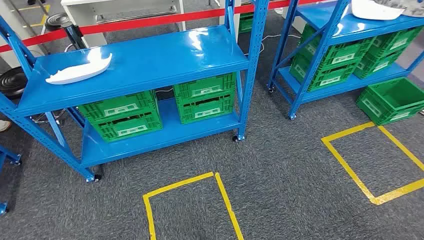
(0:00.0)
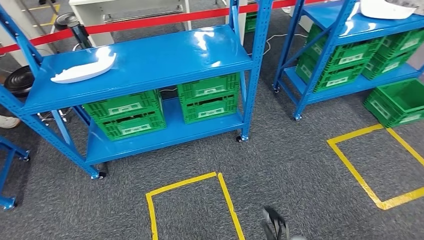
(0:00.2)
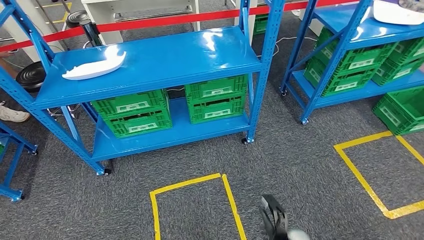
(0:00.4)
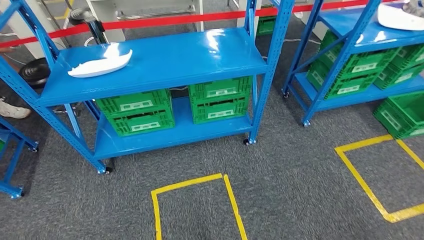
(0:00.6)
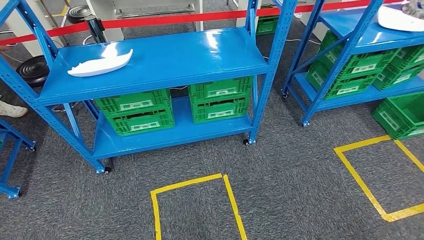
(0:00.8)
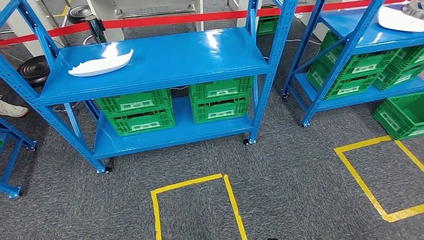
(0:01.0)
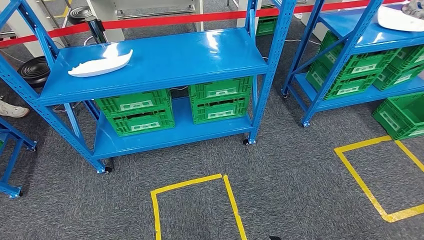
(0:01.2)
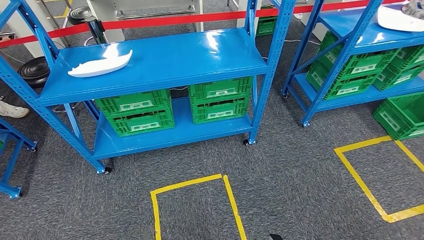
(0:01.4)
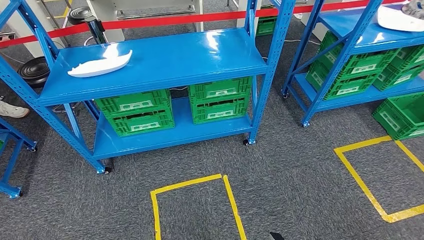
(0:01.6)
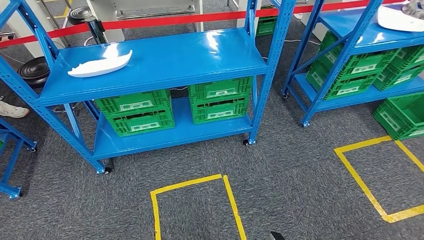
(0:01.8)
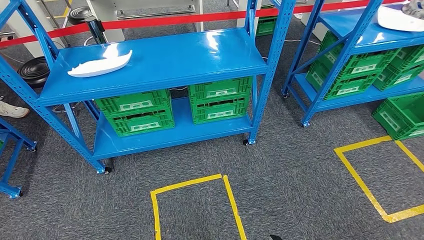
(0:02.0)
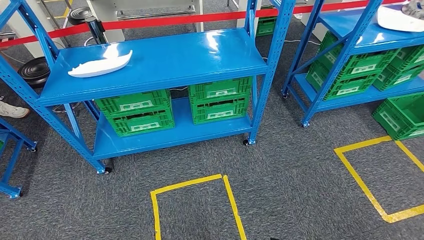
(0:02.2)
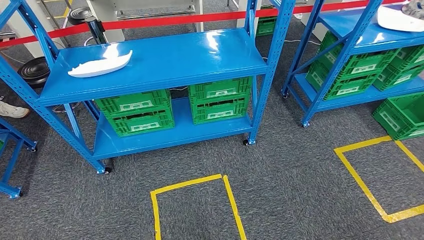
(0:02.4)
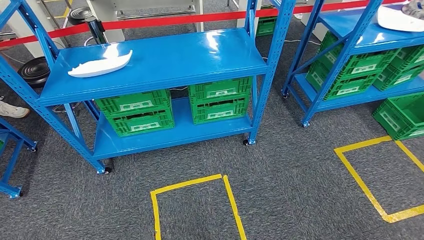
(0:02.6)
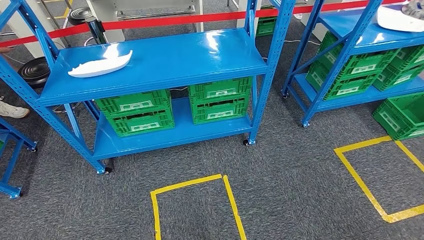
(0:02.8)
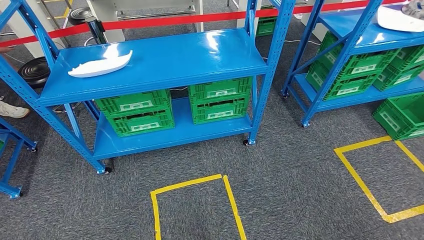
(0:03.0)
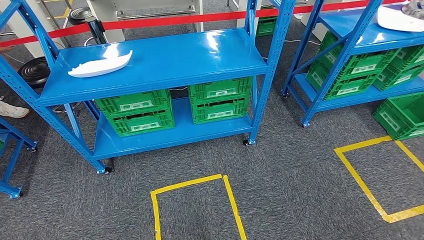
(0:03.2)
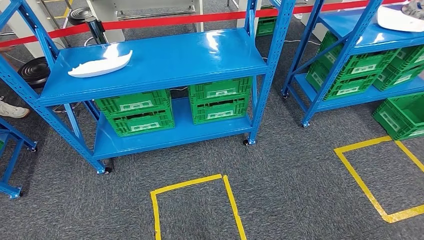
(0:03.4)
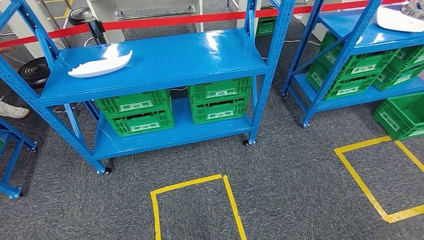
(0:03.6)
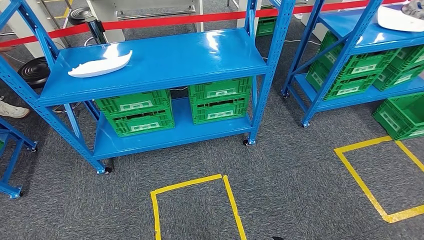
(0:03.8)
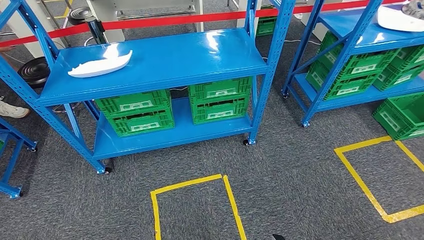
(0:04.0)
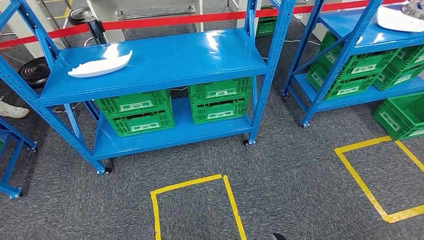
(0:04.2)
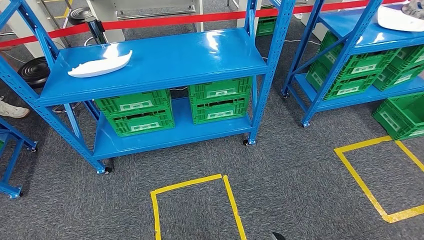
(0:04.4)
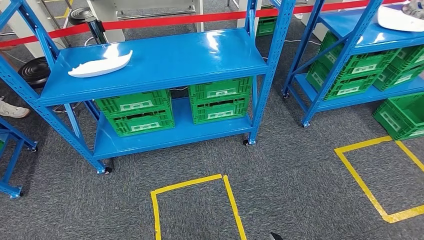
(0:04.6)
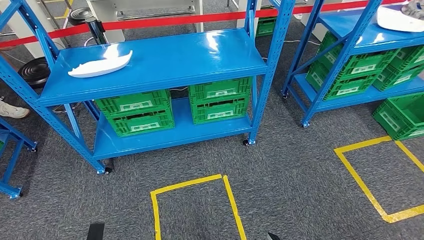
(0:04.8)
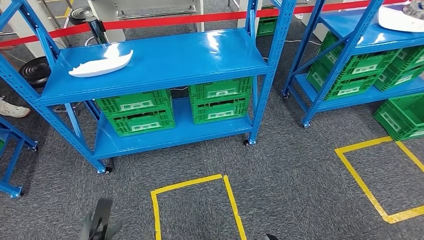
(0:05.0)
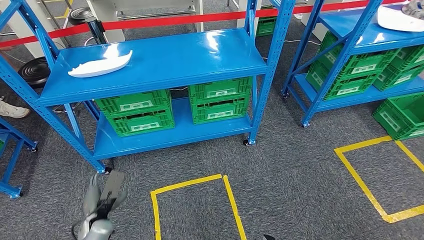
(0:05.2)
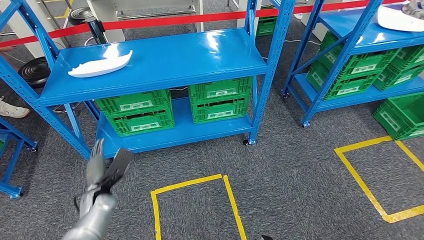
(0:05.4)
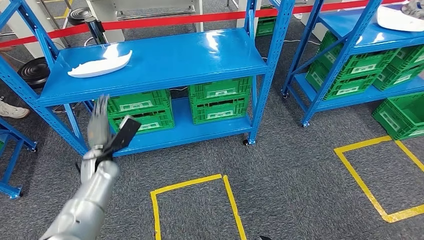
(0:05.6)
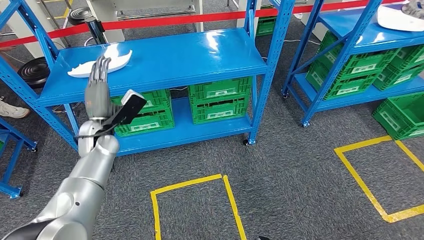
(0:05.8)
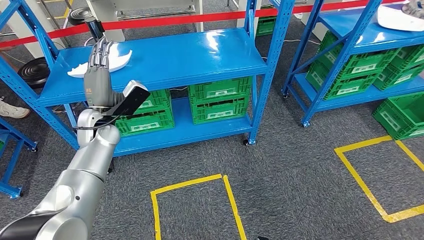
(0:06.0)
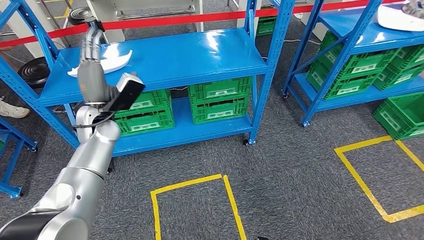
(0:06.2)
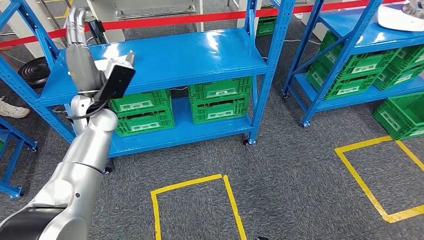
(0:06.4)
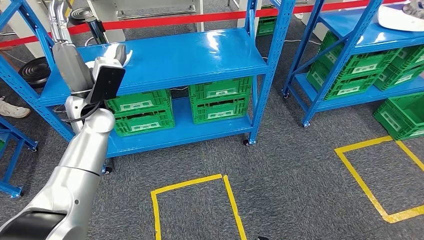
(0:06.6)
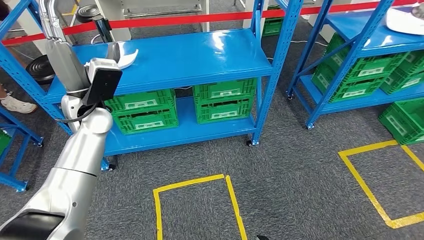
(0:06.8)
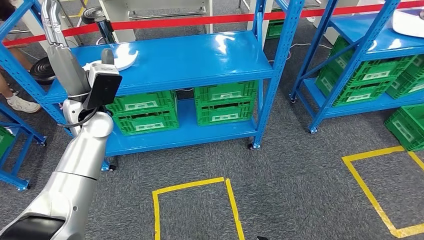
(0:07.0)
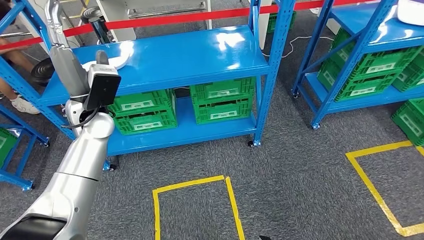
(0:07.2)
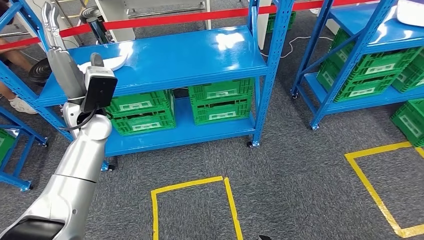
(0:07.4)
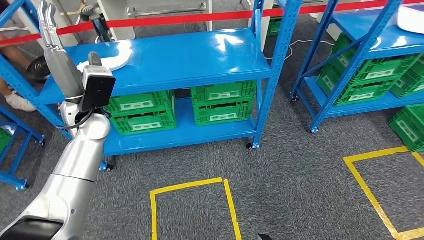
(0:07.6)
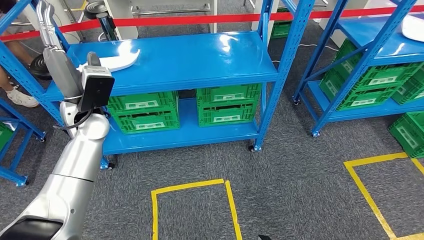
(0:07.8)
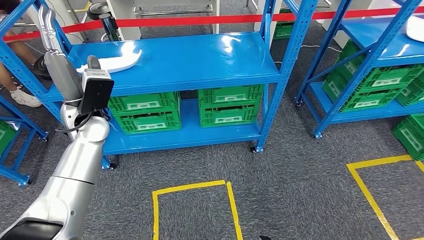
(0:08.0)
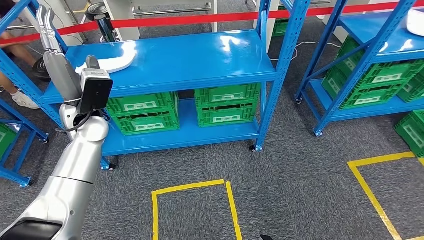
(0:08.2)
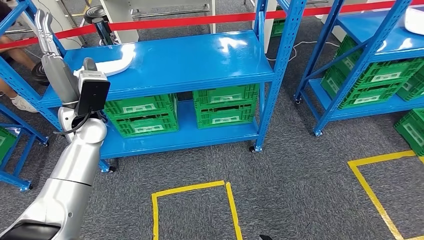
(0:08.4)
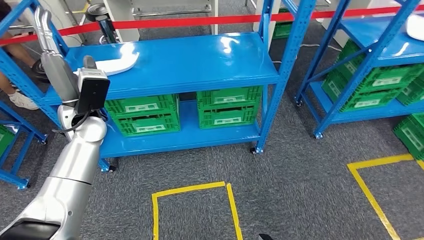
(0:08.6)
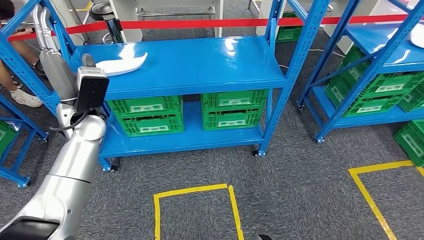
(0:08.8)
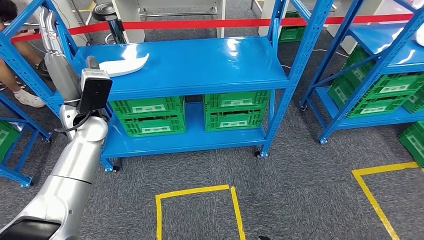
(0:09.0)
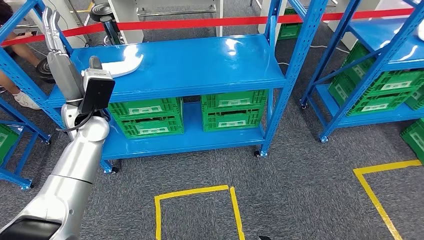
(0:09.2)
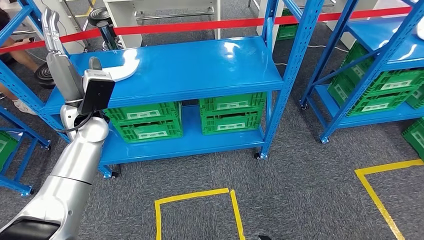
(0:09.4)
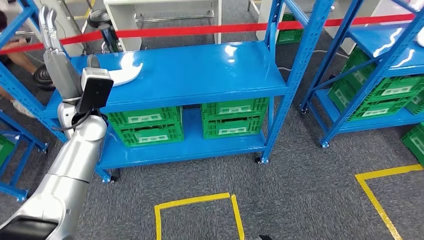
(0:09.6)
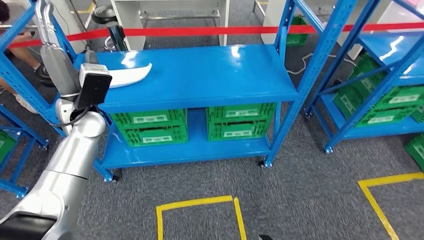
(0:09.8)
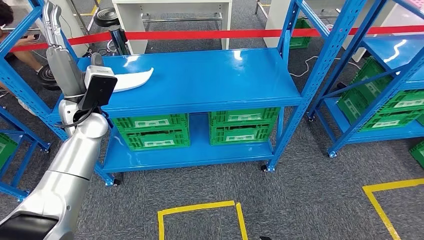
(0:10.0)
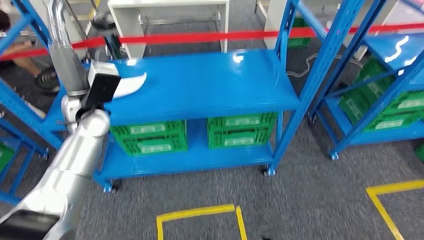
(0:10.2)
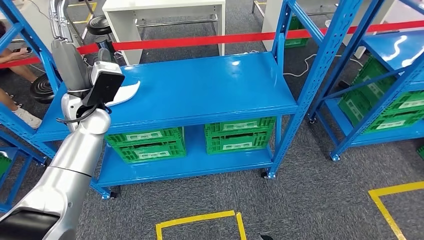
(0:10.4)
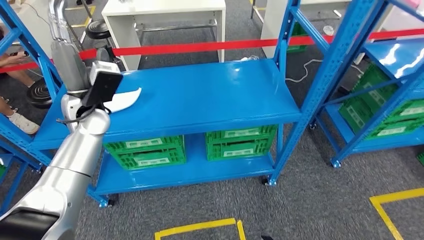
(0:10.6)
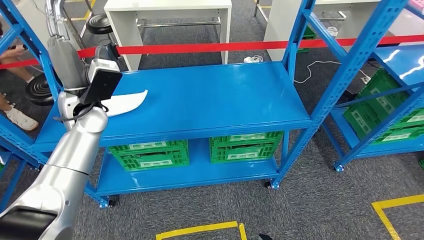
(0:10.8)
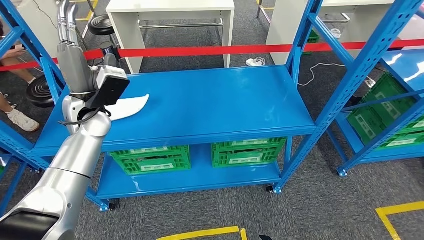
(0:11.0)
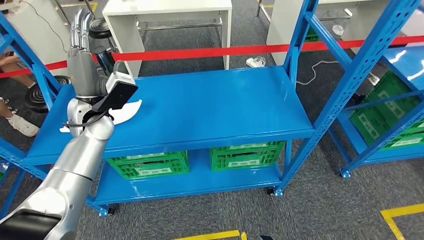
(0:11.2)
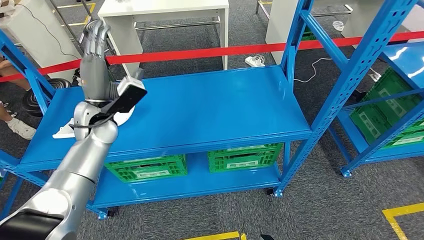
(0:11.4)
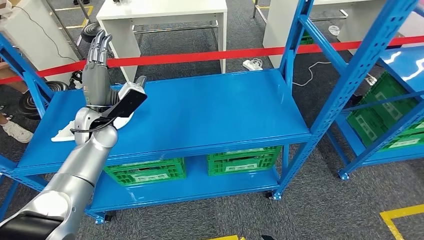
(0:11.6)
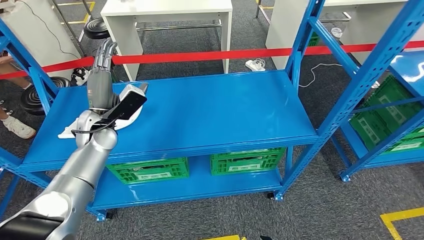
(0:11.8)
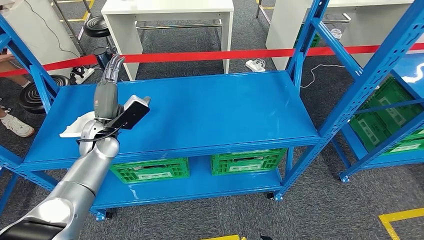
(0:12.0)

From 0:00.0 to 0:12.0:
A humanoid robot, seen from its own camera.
From 0:04.4 to 0:06.0: The left hand is displaced forward and upward by some 50 cm.

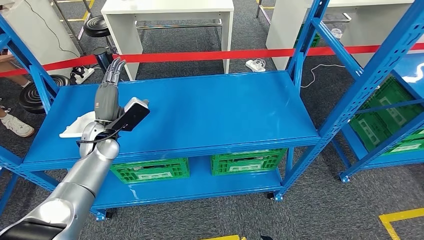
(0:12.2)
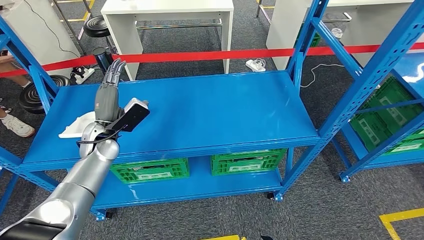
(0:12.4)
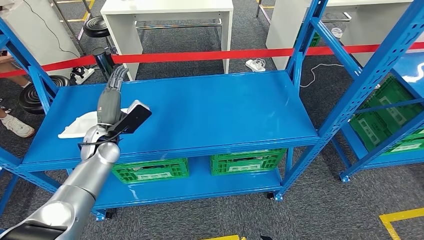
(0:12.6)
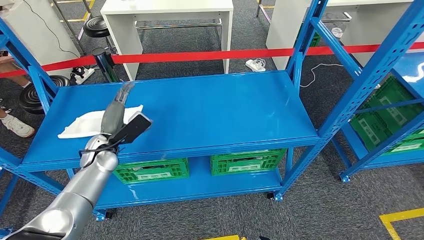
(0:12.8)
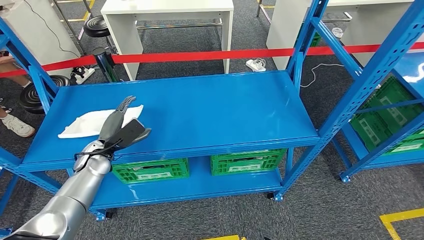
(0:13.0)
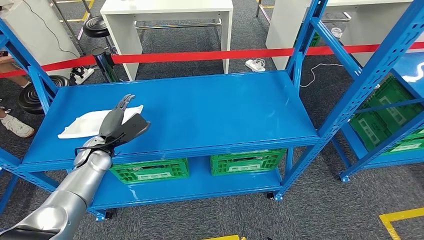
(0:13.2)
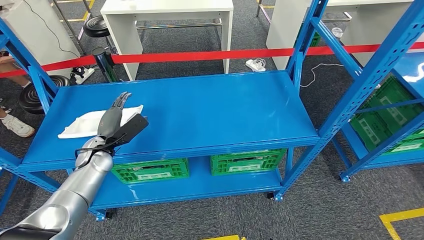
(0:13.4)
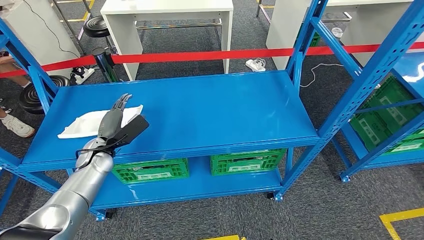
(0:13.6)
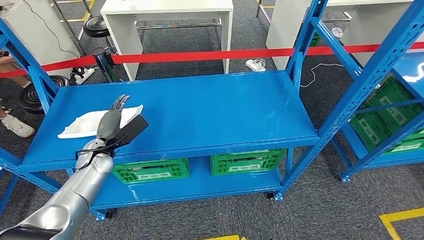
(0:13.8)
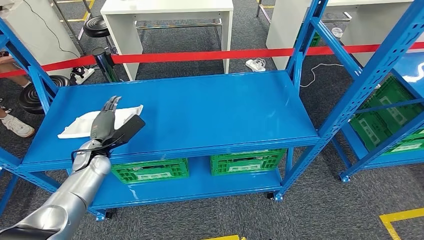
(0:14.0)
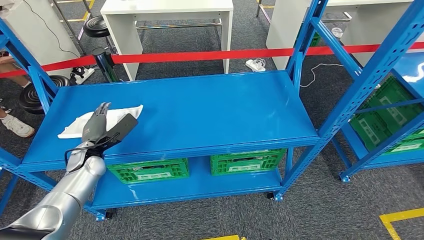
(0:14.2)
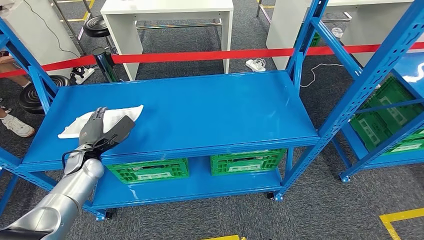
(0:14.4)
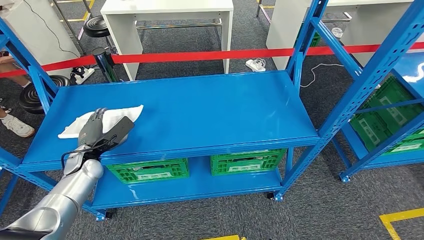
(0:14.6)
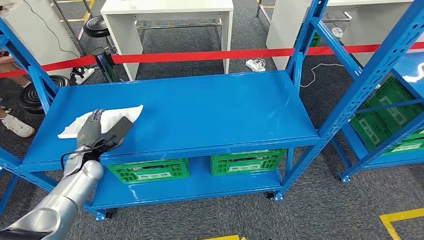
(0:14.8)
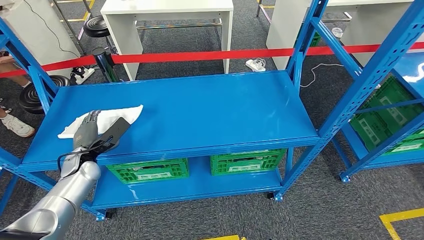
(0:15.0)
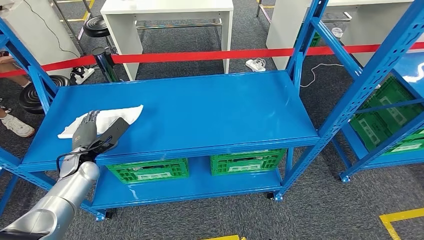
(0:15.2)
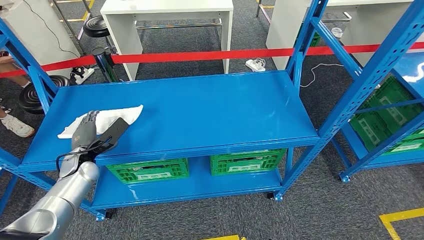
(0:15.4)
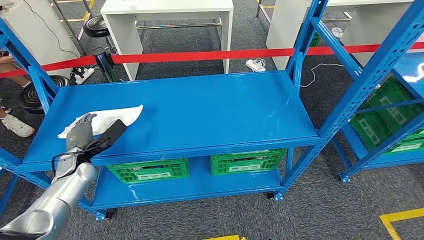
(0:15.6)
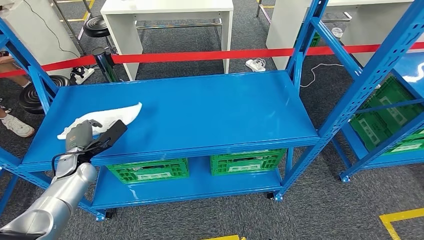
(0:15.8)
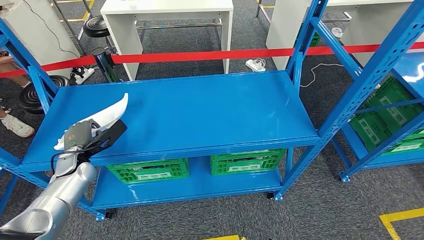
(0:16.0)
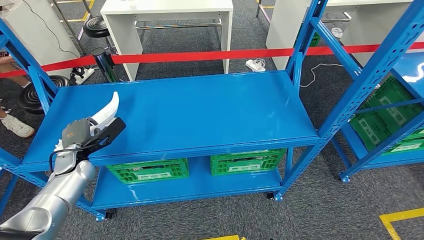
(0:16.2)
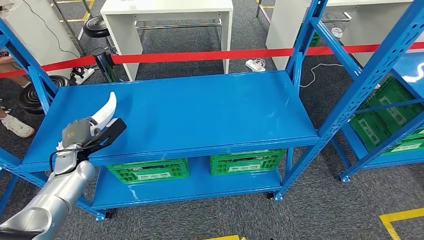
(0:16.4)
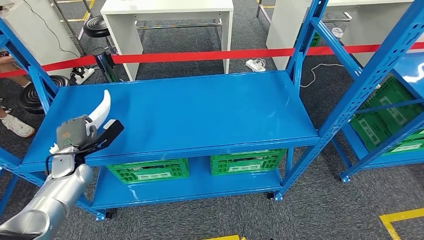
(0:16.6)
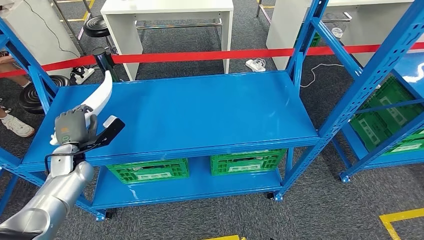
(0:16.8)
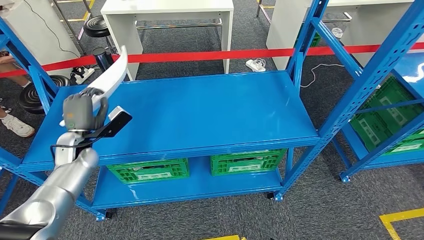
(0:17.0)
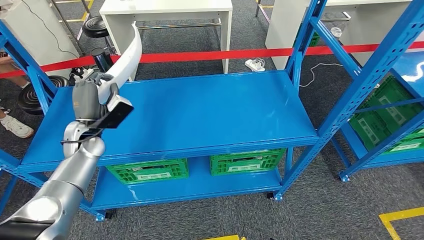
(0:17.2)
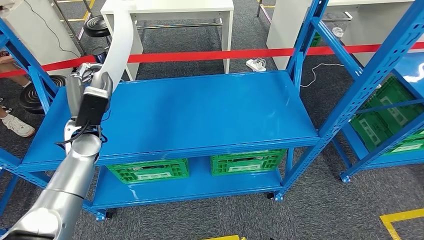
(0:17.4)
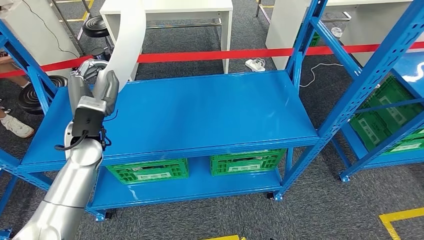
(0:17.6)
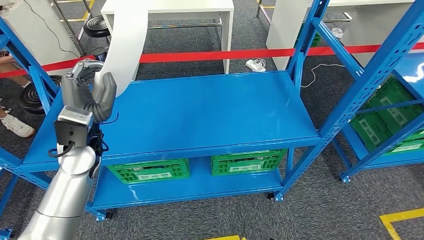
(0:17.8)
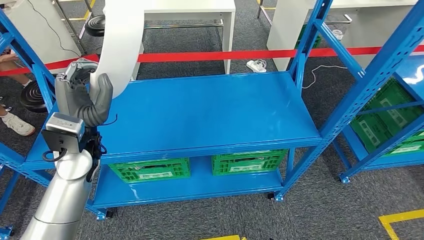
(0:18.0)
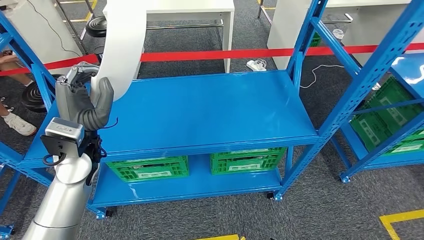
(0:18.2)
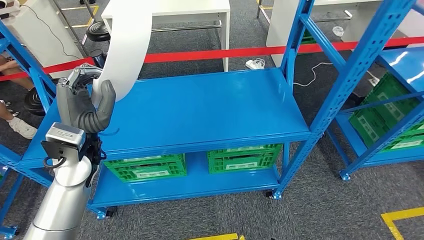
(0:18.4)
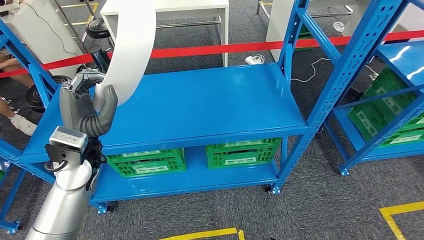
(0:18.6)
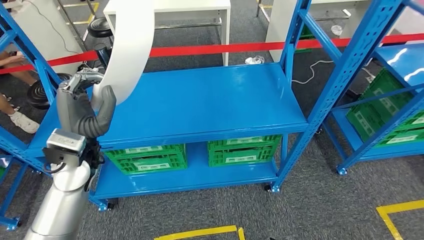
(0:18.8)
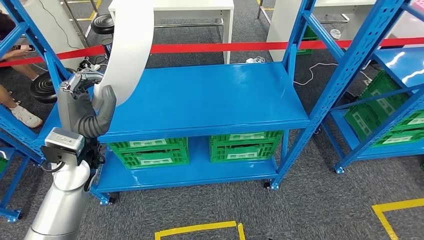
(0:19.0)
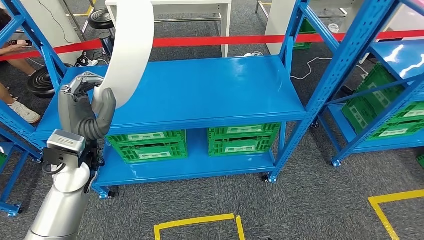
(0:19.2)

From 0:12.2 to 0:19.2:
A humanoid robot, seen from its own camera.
Step, from 0:12.2 to 0:17.4: Pick up the small component from the shelf.
From 0:12.2 to 0:13.6: The left hand heads downward, covering some 5 cm.
From 0:13.6 to 0:15.0: The left hand goes some 5 cm to the left.
From 0:15.0 to 0:16.4: The hands move only a little.
From 0:16.4 to 0:17.8: The left hand shifts approximately 20 cm upward and to the right.
